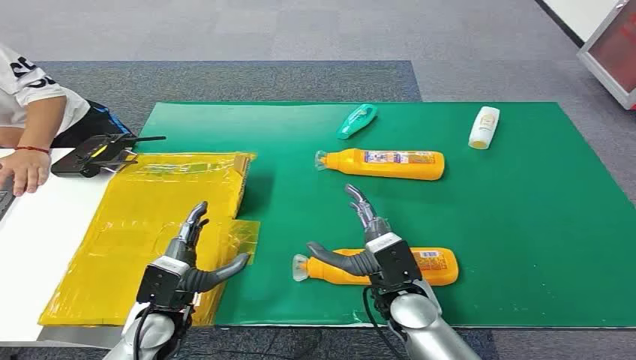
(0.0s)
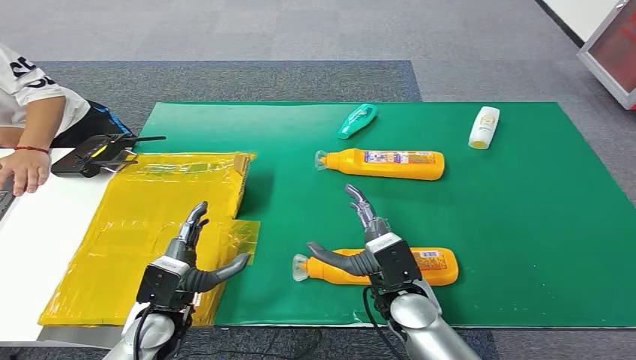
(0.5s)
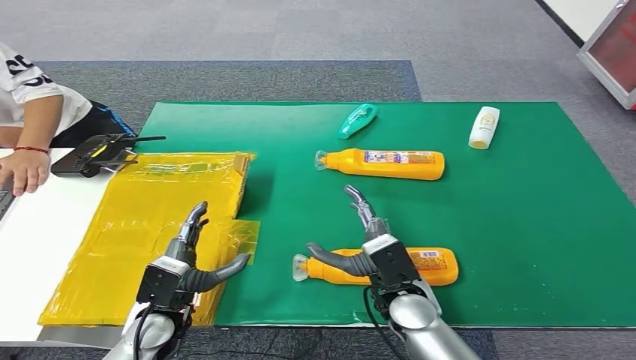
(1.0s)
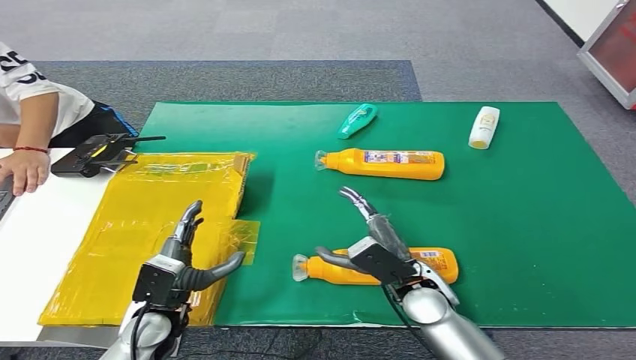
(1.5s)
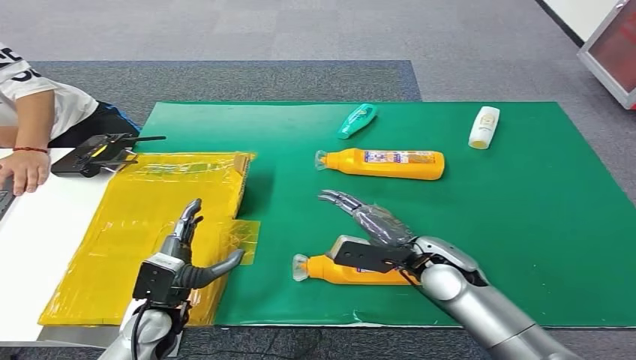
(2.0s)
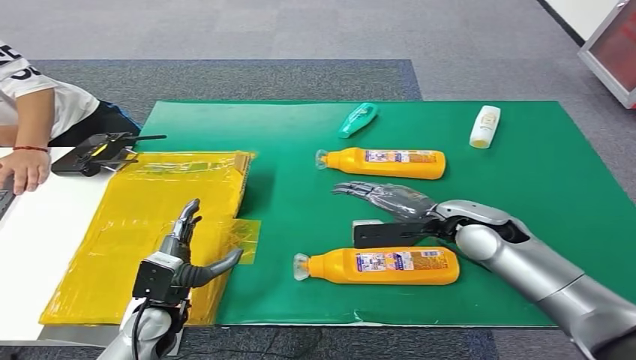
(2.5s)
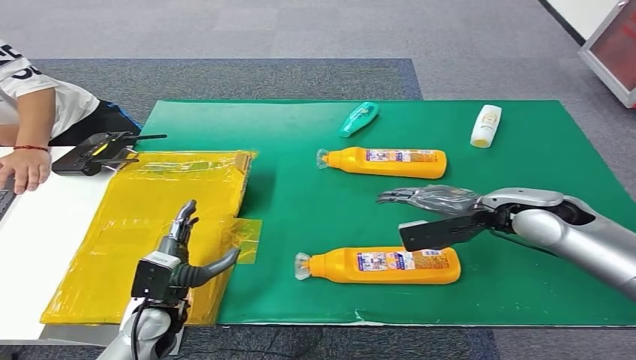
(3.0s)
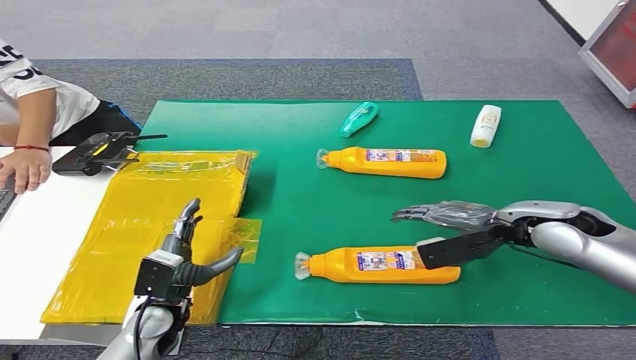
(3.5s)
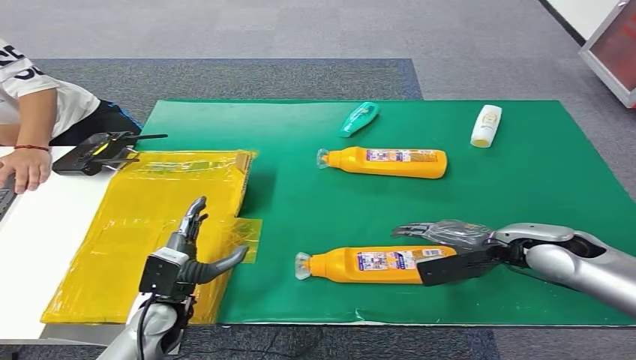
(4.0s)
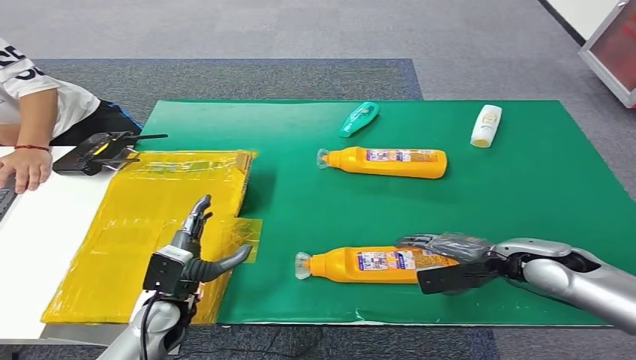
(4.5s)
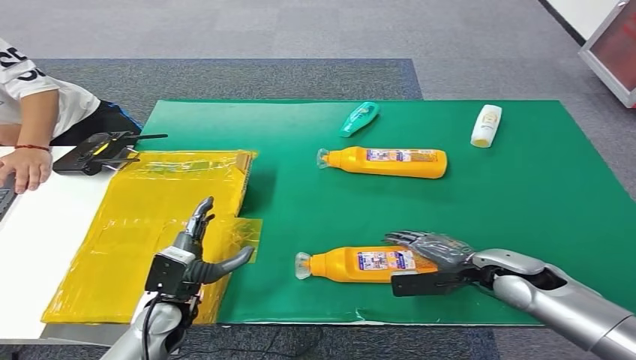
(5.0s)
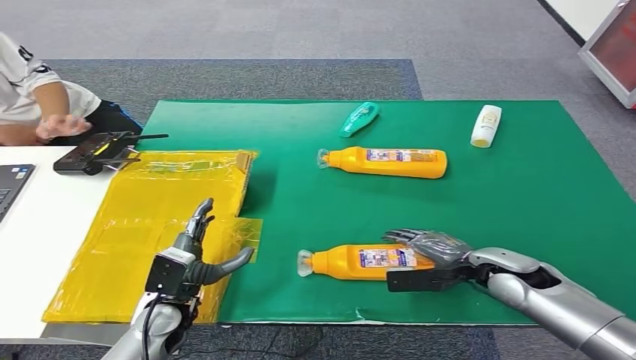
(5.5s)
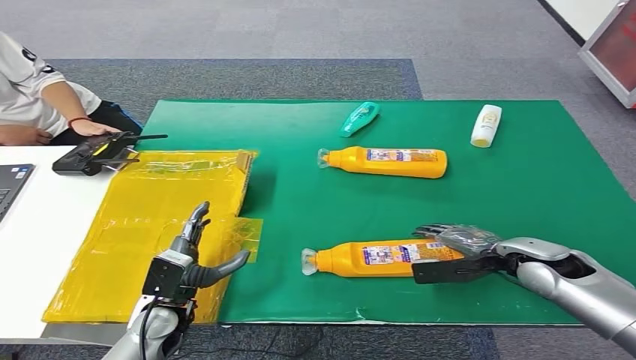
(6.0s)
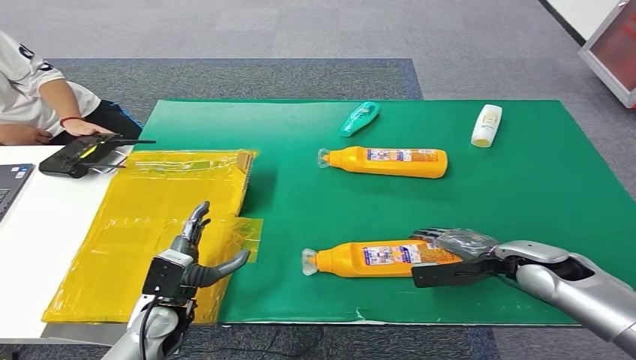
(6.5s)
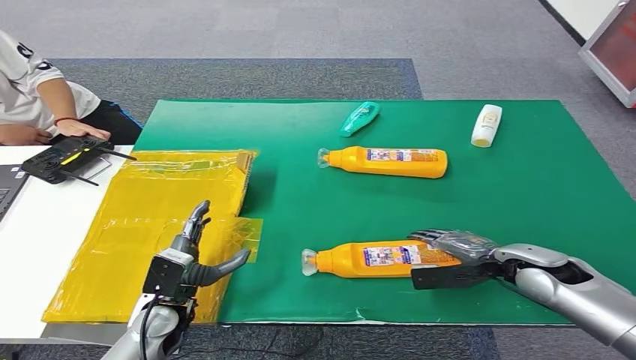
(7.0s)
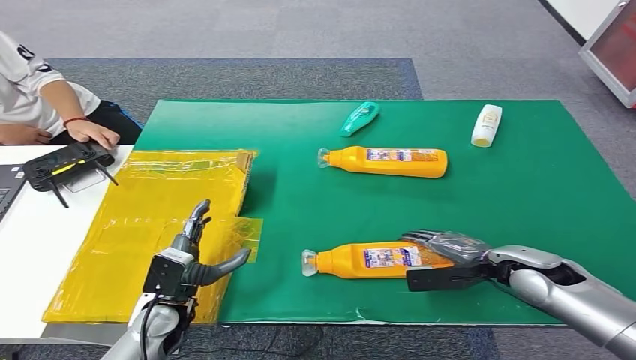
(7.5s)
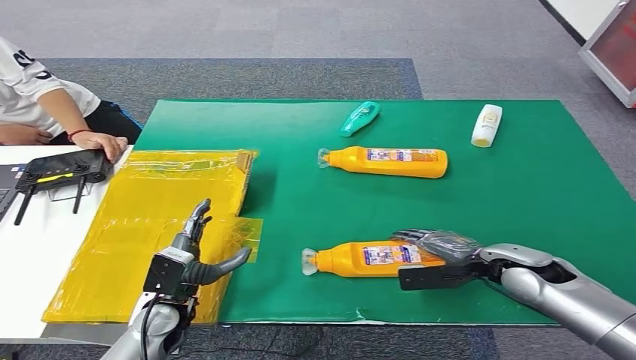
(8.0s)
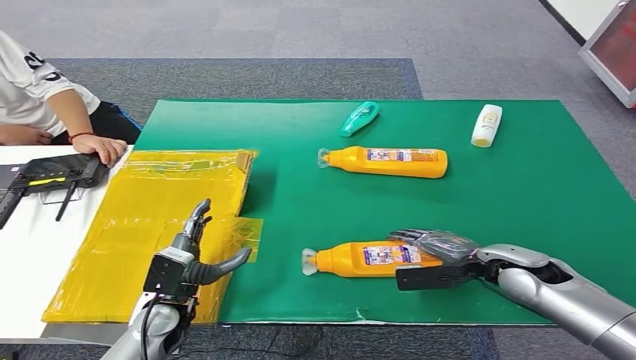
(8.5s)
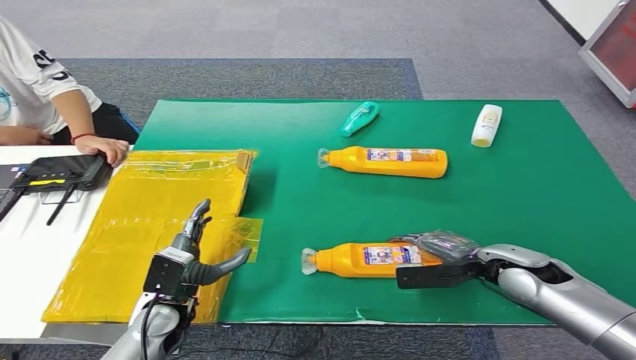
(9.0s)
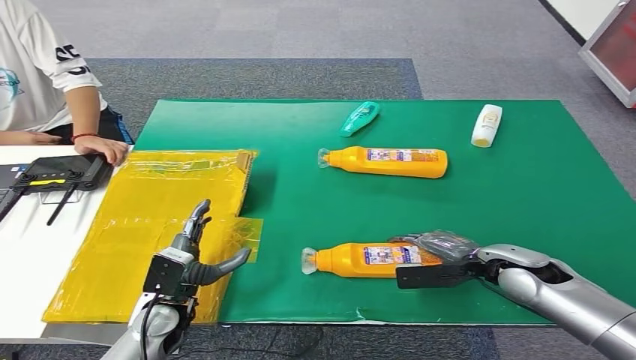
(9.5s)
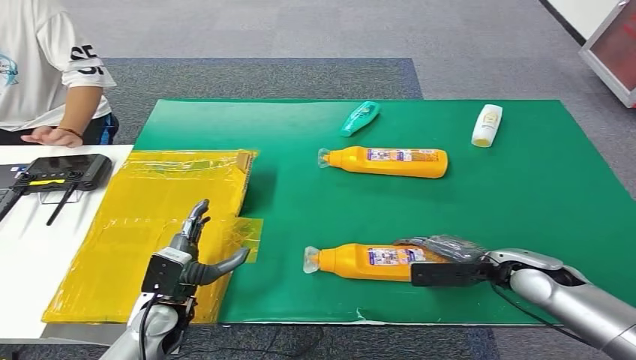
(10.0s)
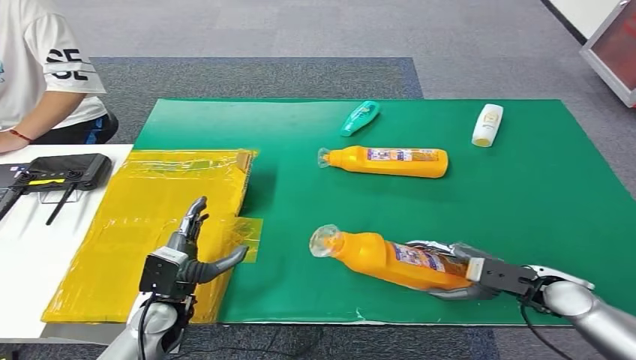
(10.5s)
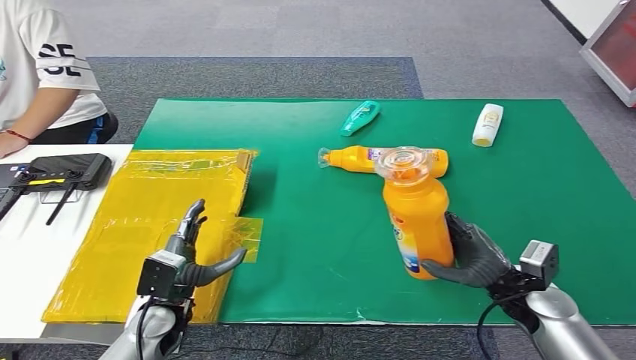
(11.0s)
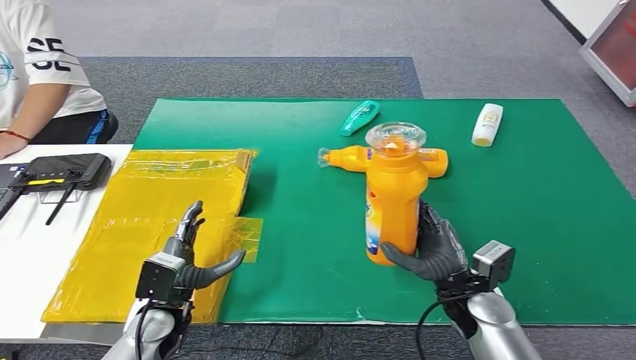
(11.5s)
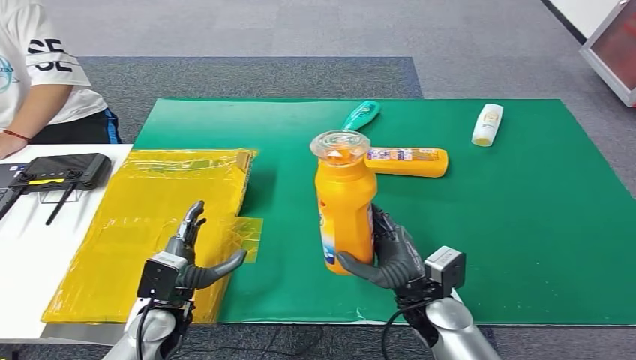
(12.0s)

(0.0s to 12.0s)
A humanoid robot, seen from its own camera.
2.0s - 4.0s: The right hand heads to the right, covering some 15 cm.
6.0s - 10.0s: The hands stay close to where they were, moving slightly.
10.0s - 12.0s: The right hand is displaced to the left by some 15 cm.

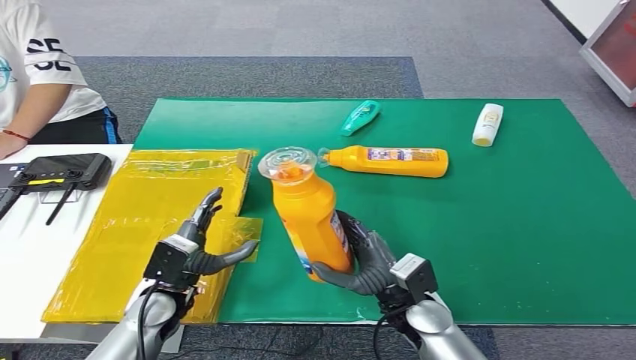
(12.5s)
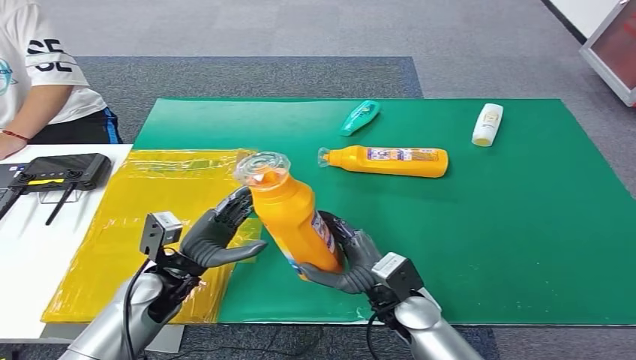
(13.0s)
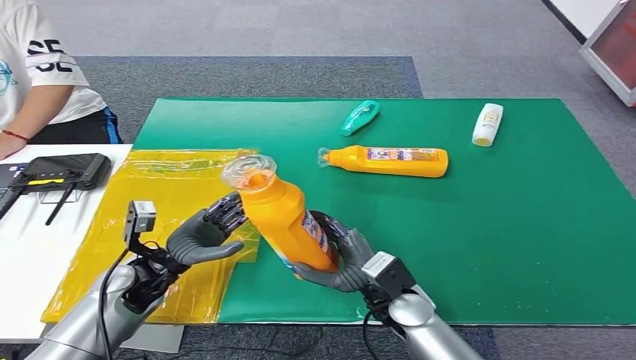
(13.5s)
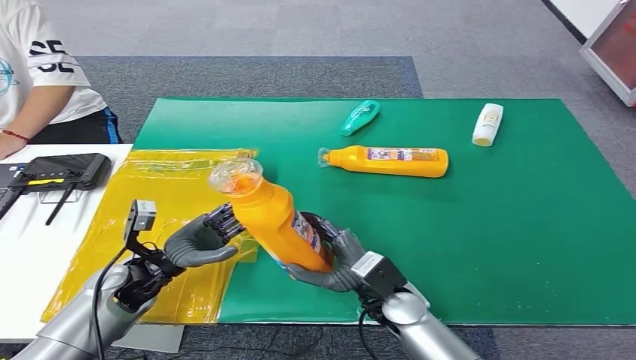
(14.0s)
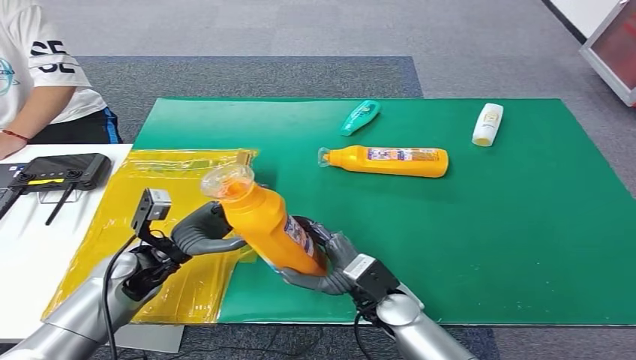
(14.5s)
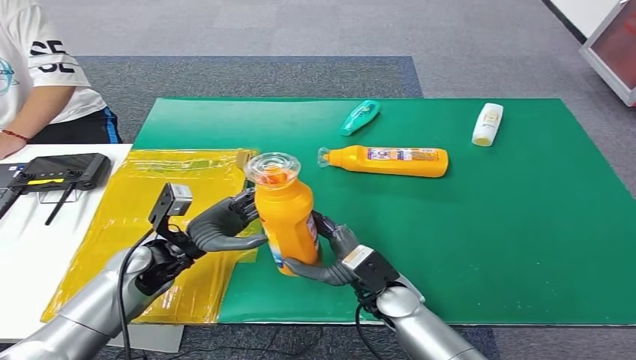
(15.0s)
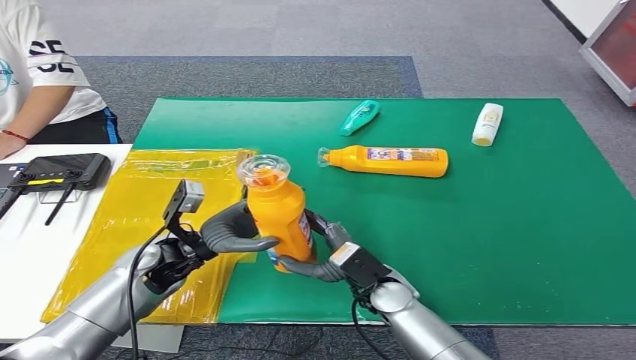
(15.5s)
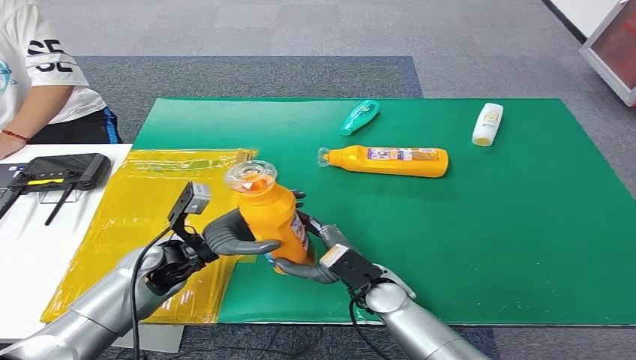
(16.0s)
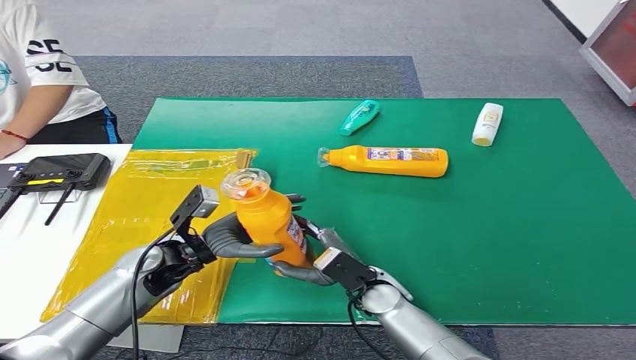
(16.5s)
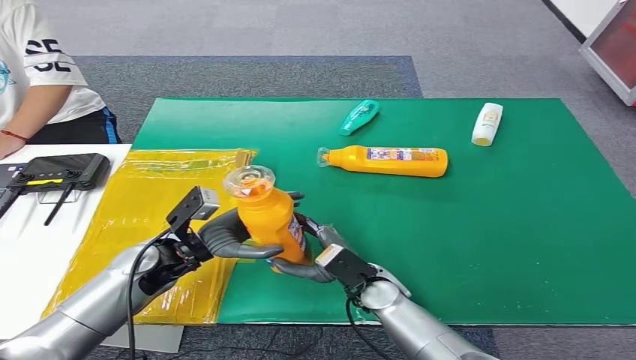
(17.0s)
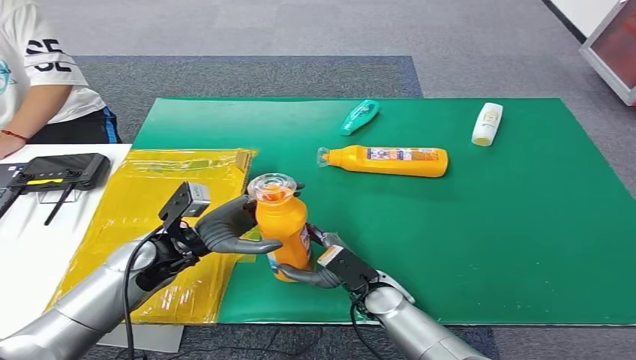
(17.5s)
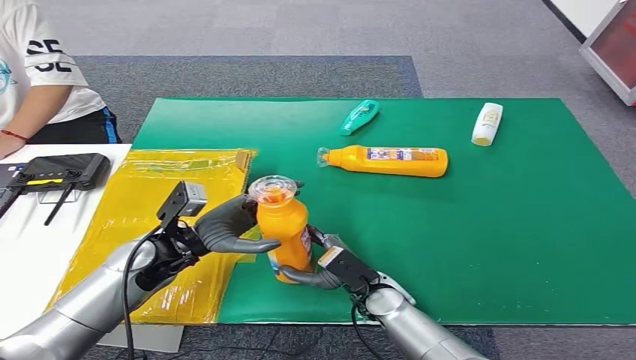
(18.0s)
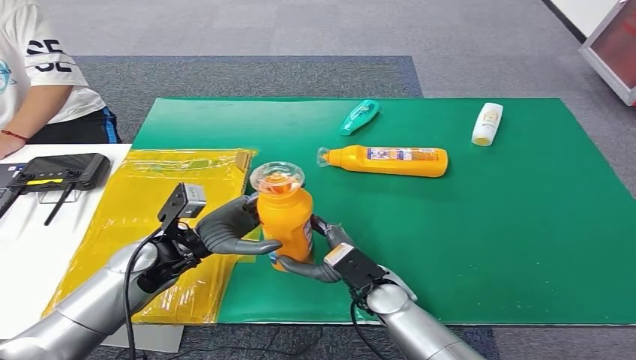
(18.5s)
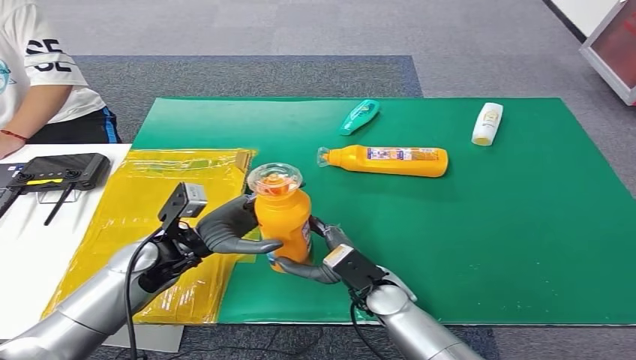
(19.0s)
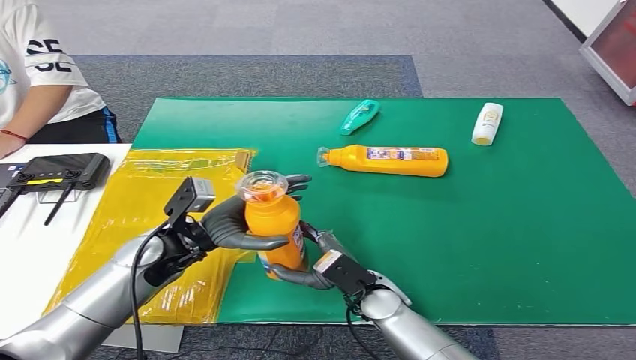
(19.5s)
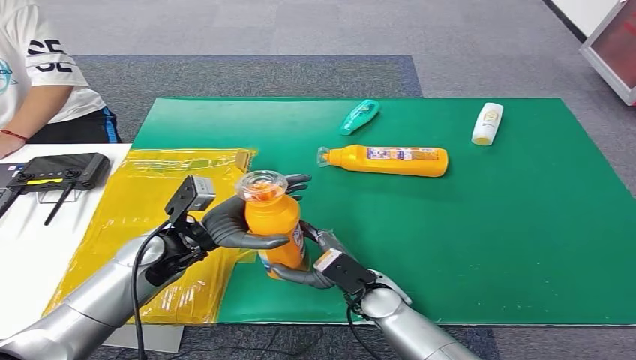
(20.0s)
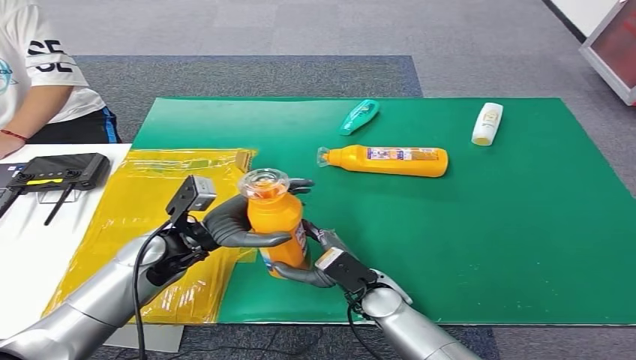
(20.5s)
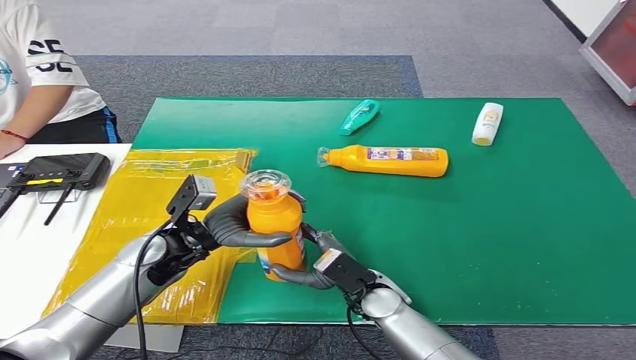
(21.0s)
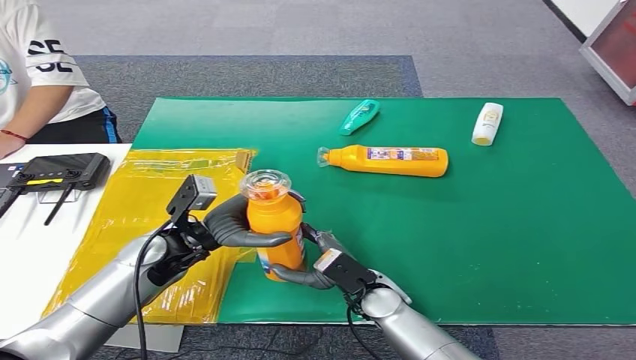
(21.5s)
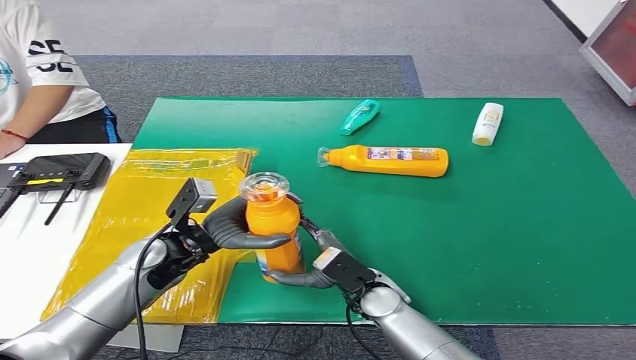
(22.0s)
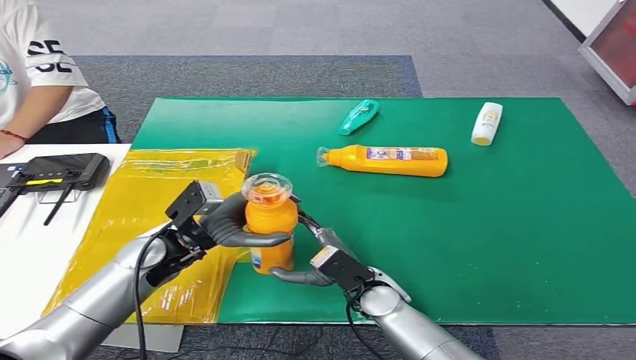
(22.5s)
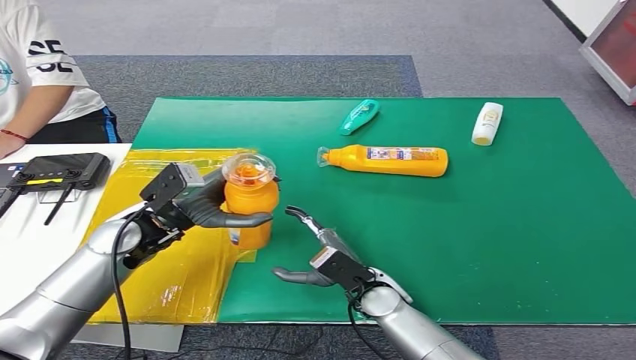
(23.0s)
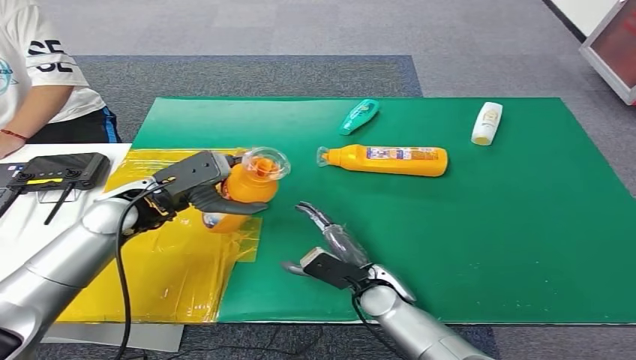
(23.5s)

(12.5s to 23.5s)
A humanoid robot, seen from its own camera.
Step, 12.5s - 16.0s: Pick up the bottle from the table.
12.5s - 14.5s: The left hand travels forward by about 5 cm.
14.5s - 18.0s: The hands move only a little.
18.0s - 20.0s: The hands stay close to where they were, moving slightly.
20.0s - 21.5s: Neither hand changes place.
21.5s - 23.5s: The left hand is displaced upward by roughly 5 cm.
